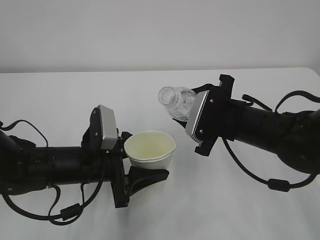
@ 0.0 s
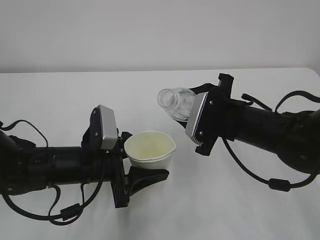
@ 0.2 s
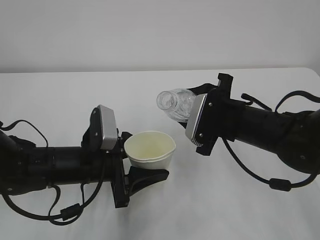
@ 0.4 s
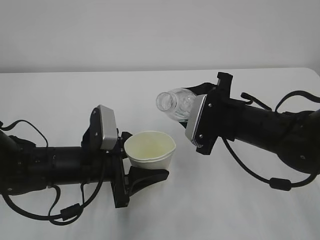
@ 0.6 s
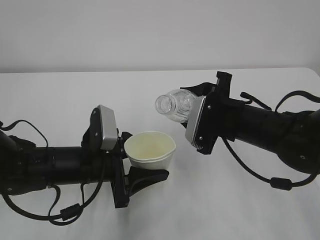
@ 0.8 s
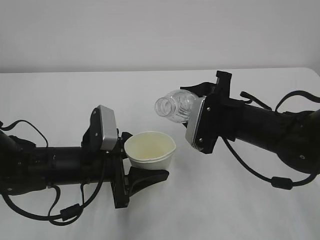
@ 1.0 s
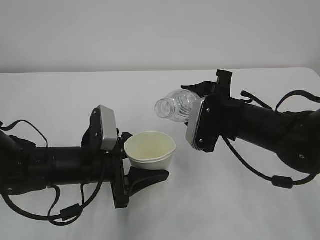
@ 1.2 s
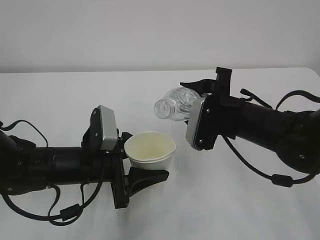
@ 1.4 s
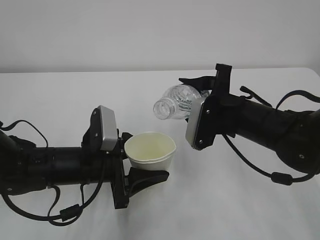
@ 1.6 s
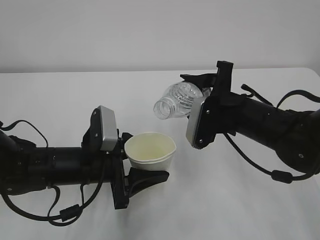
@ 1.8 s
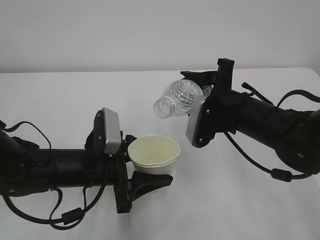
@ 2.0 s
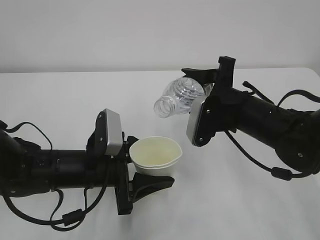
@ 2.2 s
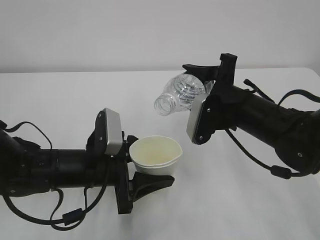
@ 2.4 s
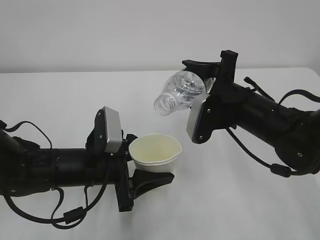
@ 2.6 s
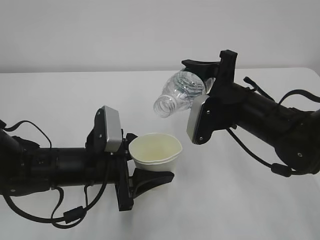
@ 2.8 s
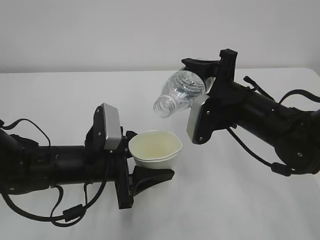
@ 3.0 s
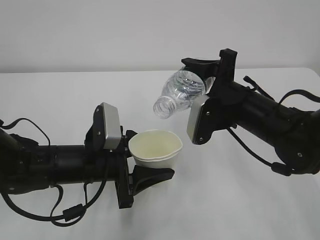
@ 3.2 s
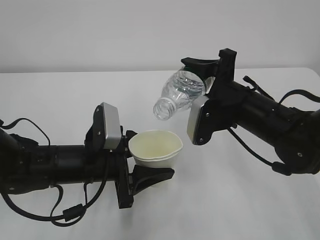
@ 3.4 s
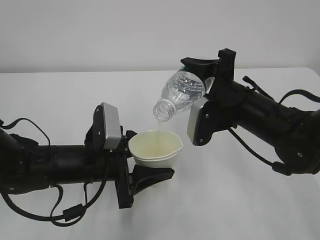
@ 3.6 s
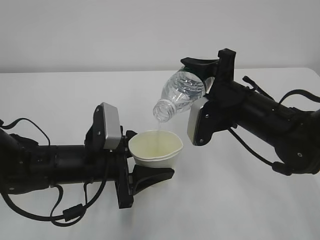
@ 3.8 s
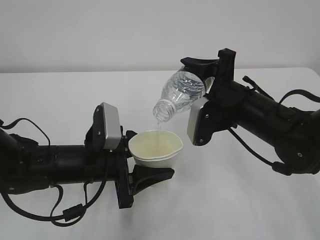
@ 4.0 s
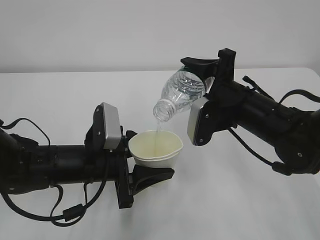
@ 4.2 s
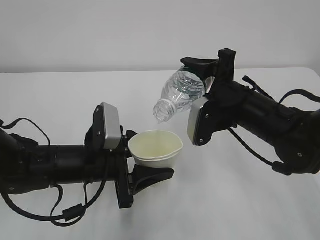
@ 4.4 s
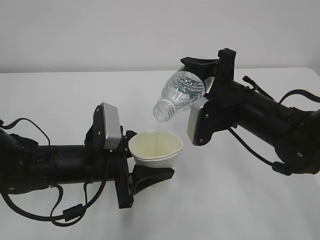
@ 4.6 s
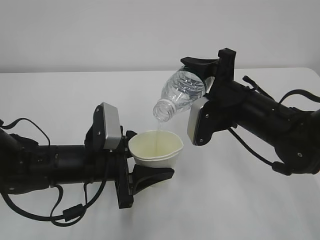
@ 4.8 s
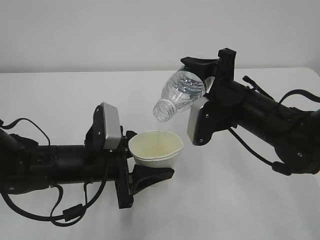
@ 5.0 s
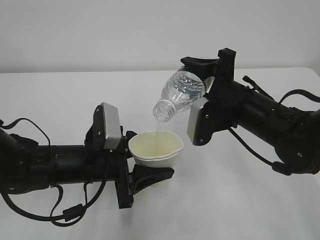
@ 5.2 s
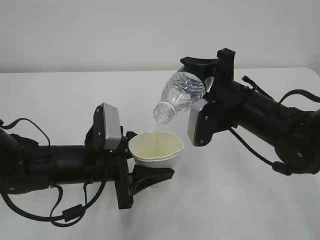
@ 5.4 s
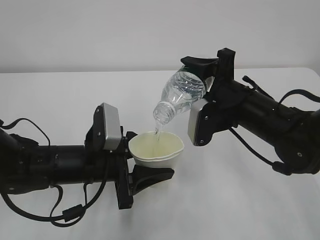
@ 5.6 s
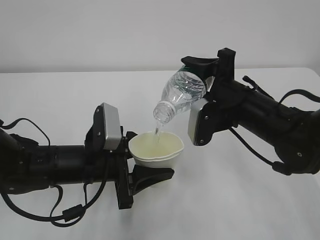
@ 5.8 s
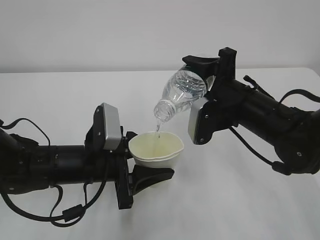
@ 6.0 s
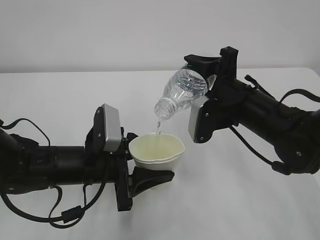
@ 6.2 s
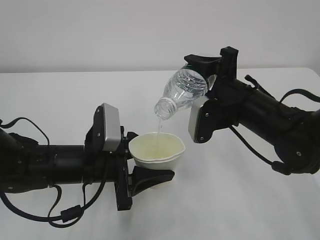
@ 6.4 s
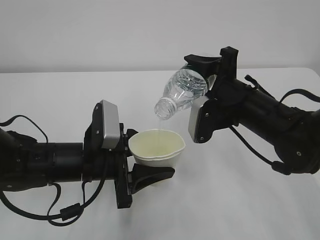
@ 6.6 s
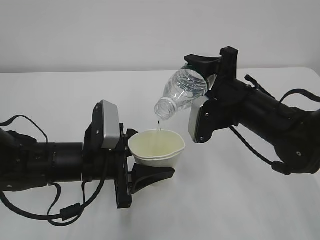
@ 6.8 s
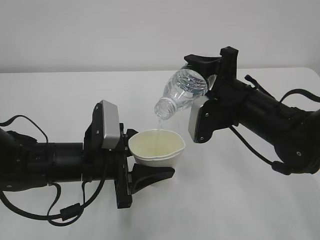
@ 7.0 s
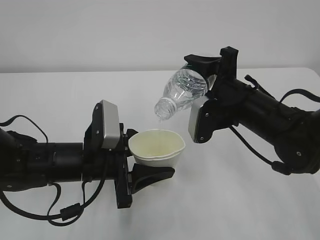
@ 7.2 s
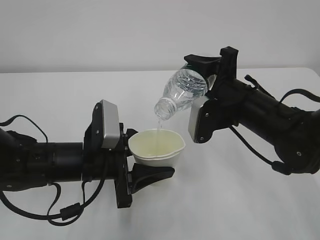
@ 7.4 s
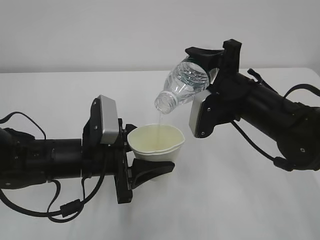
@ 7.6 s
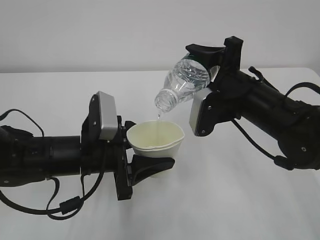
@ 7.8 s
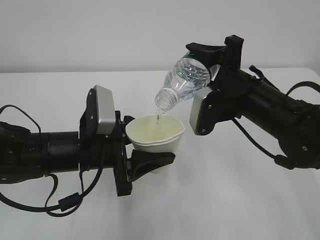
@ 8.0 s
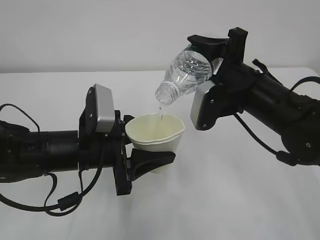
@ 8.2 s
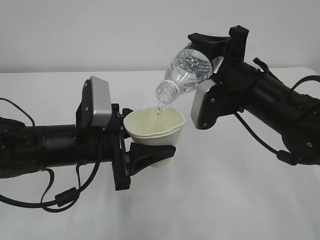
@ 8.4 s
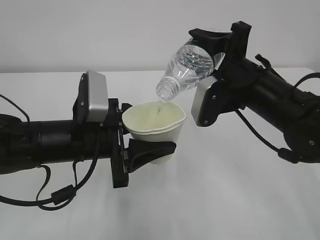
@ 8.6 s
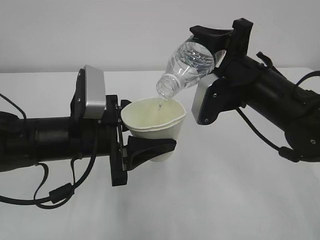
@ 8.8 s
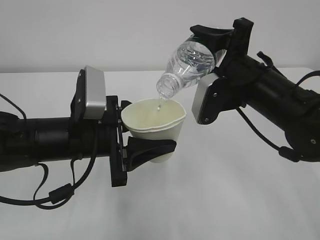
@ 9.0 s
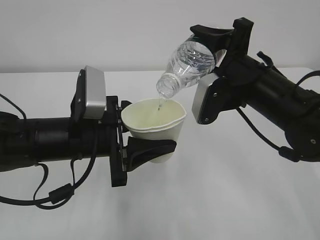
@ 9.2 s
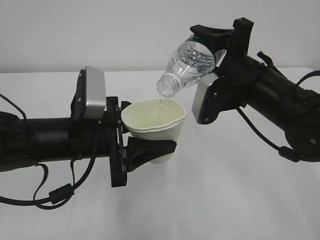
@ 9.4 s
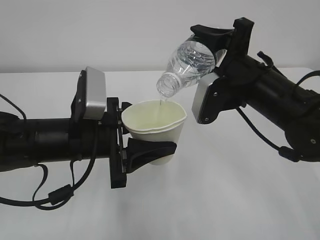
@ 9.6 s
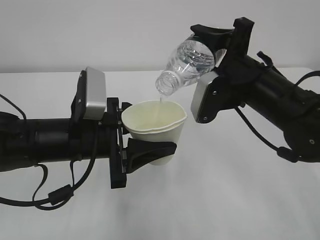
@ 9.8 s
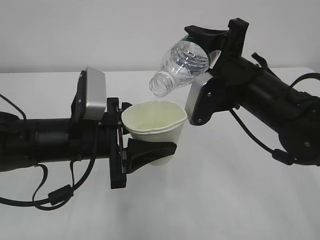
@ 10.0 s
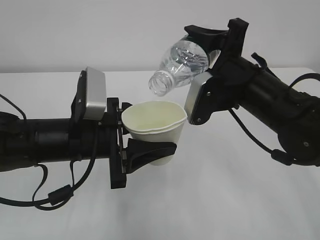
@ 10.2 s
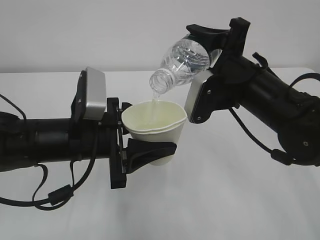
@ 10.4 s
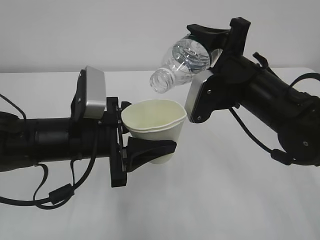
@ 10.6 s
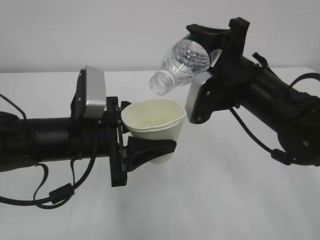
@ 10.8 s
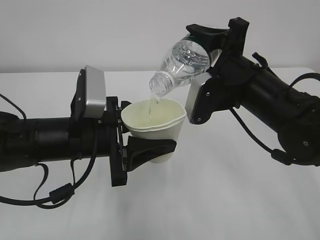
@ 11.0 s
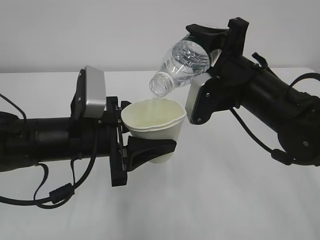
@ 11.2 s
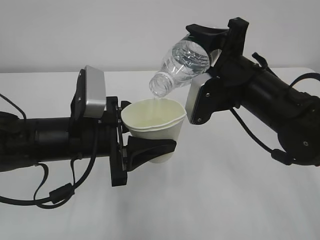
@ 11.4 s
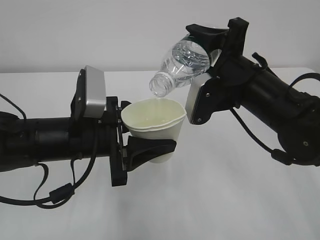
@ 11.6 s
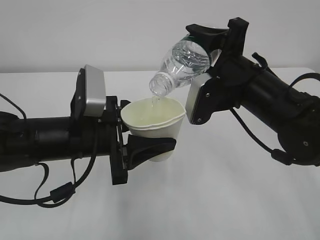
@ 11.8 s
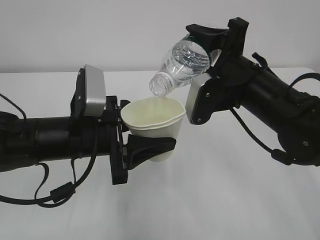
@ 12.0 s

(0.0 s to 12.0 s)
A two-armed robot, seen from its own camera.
0.0 s - 1.6 s: The grippers stay close to where they were, moving slightly.
1.6 s - 3.0 s: The grippers make only small movements.
3.0 s - 4.4 s: The two grippers keep their place.
4.4 s - 6.0 s: Both grippers stay about where they are.
6.0 s - 7.6 s: There are only small adjustments of the grippers.
7.6 s - 9.0 s: The left gripper moves upward, some 5 cm.
9.0 s - 12.0 s: Both grippers stay about where they are.

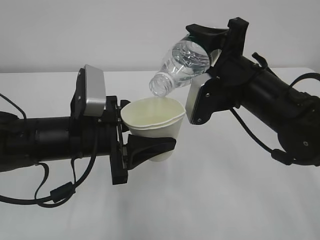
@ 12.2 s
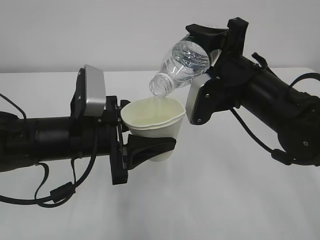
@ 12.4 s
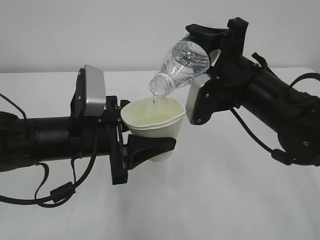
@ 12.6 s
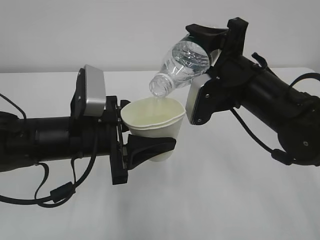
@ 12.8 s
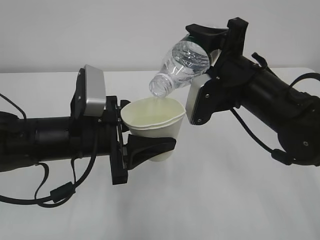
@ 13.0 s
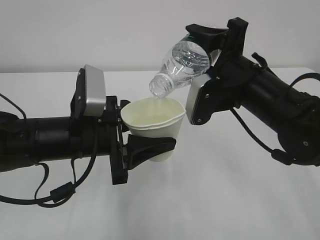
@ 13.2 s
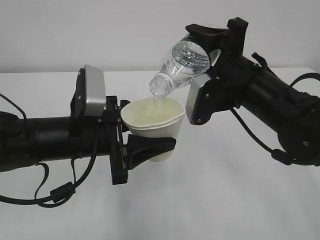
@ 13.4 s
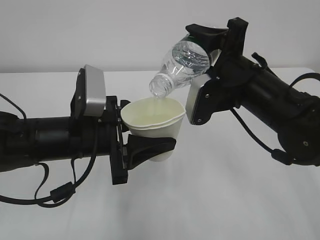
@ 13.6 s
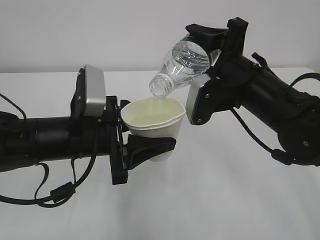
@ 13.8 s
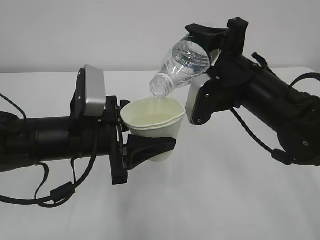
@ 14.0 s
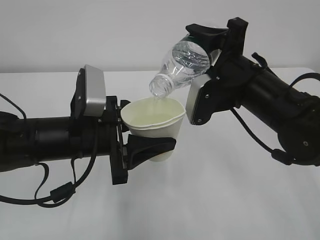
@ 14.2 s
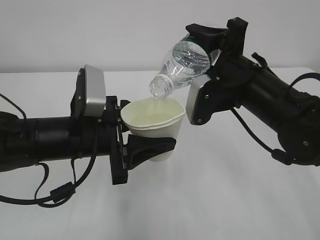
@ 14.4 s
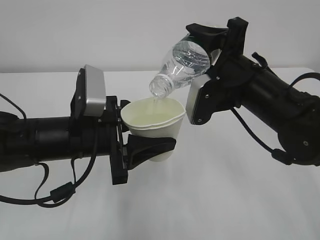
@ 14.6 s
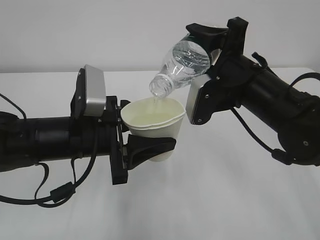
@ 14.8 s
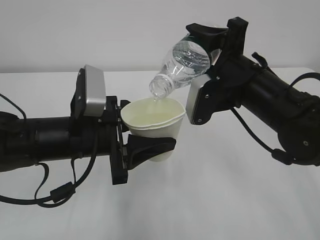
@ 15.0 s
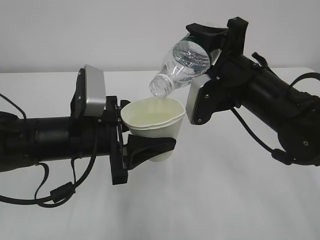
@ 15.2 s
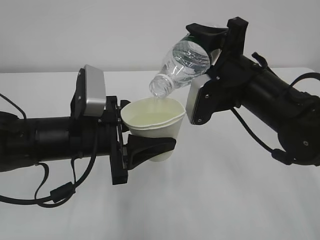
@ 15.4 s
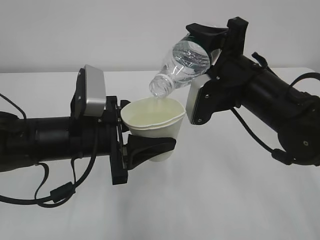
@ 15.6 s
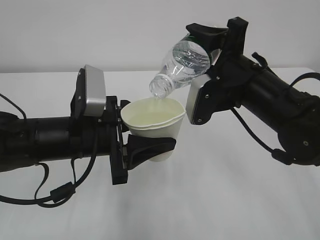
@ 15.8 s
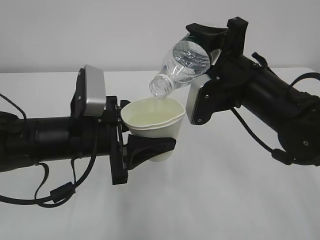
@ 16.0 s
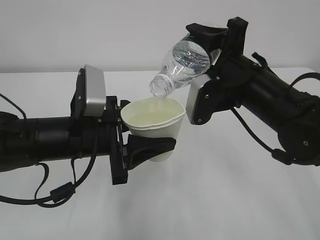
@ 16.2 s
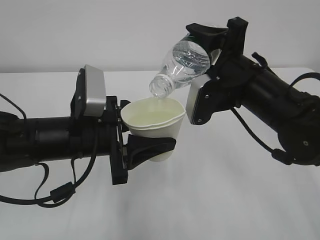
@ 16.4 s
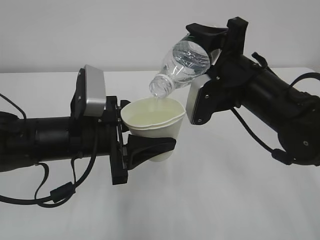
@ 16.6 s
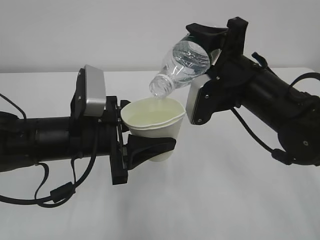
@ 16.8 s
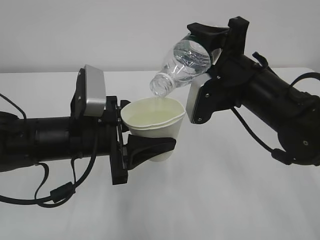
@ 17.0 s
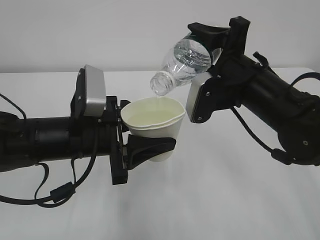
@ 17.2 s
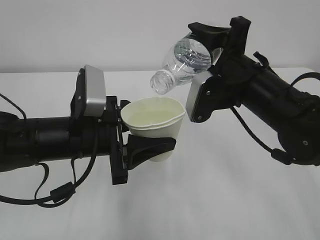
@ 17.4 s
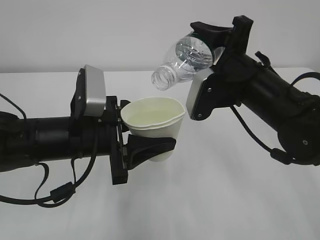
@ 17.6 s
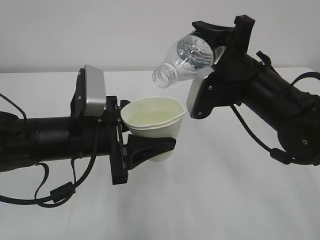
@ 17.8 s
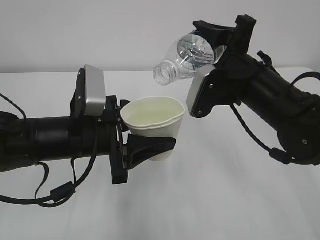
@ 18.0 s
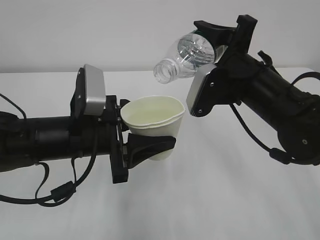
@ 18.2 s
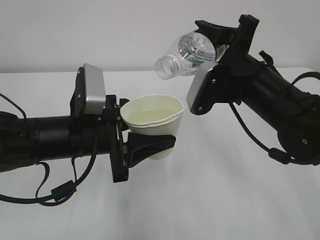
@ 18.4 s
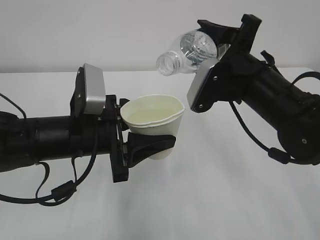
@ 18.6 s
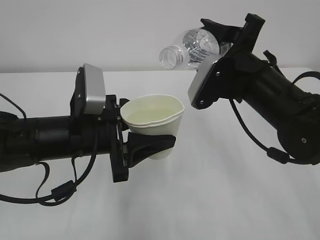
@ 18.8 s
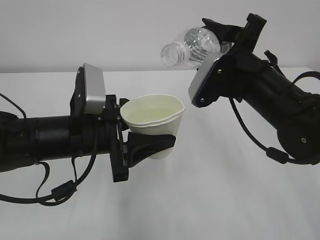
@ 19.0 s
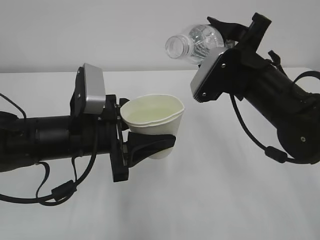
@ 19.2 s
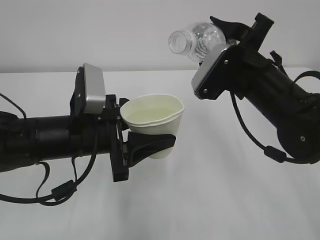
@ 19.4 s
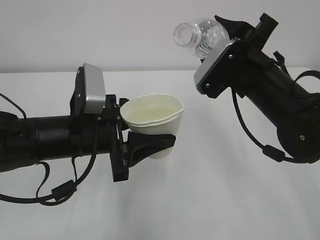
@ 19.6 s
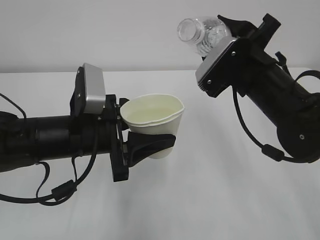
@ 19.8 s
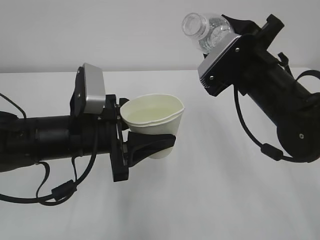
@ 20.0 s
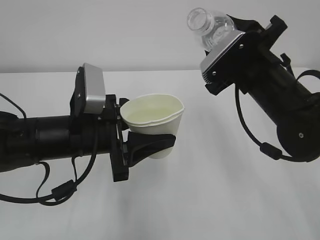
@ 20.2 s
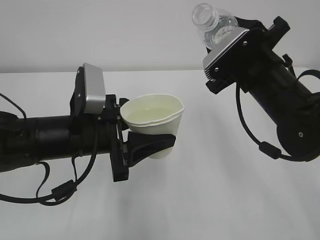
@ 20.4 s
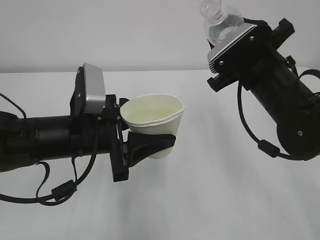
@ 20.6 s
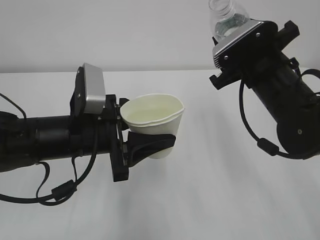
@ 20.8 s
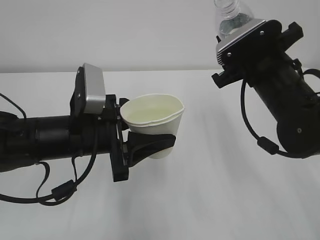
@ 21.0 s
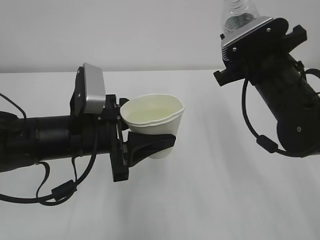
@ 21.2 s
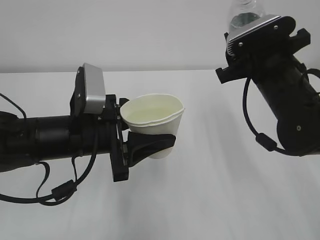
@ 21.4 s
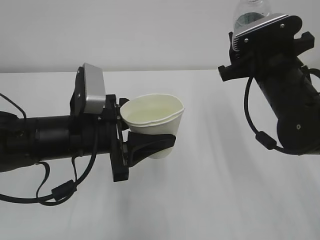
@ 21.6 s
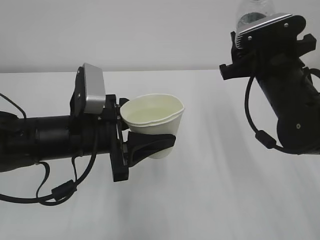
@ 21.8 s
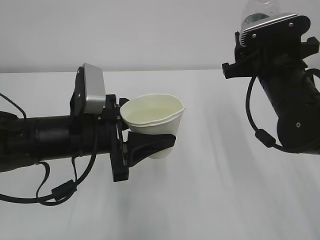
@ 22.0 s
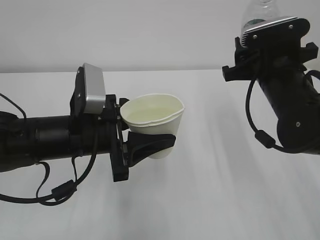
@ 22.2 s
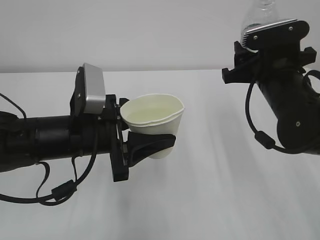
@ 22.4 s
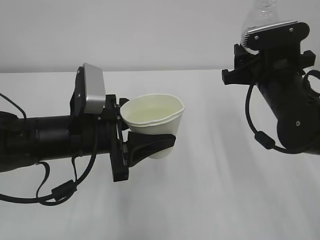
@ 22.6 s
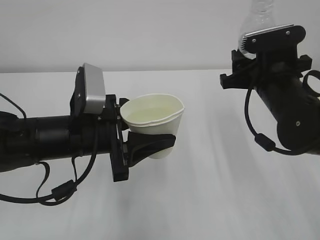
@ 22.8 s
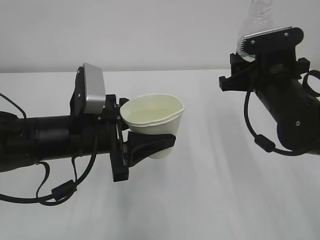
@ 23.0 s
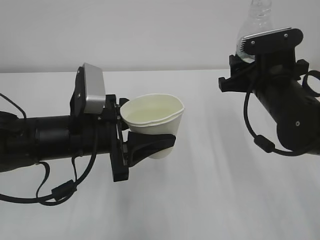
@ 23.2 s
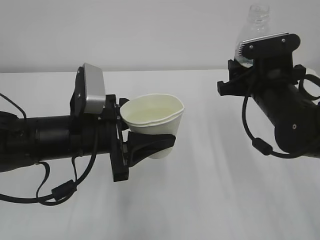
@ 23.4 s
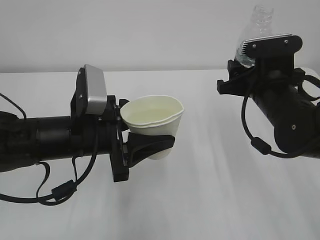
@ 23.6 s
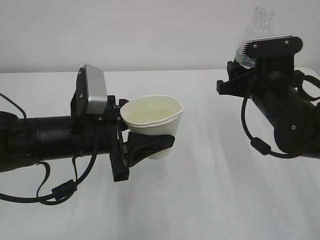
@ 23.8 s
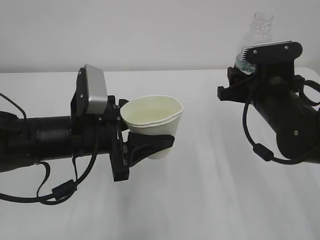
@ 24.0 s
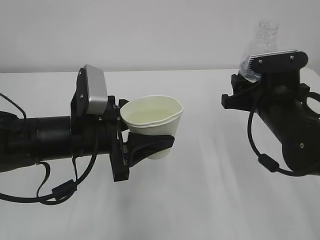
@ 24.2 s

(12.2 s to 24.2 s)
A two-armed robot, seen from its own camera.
12.2 s - 16.6 s: Both grippers stay put.
16.6 s - 18.2 s: The grippers move only a little.
22.6 s - 24.2 s: The grippers make only small movements.
